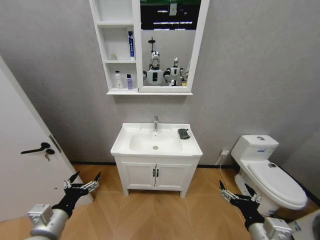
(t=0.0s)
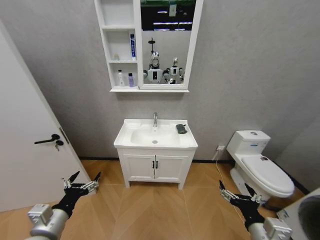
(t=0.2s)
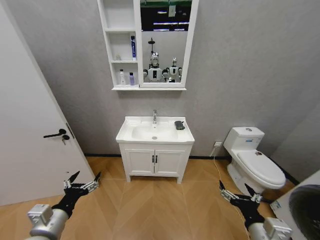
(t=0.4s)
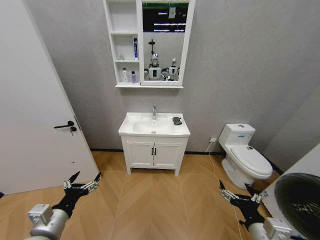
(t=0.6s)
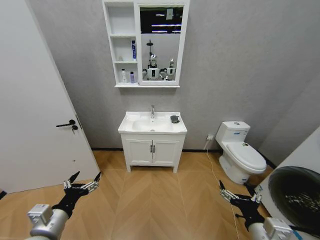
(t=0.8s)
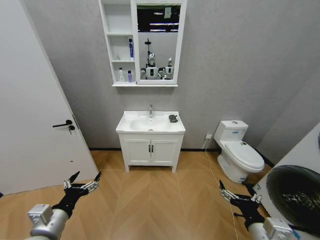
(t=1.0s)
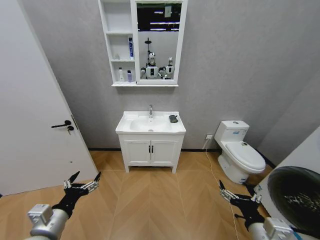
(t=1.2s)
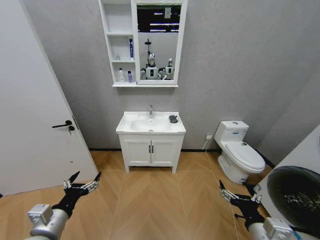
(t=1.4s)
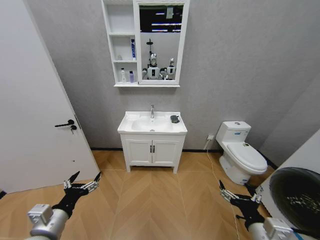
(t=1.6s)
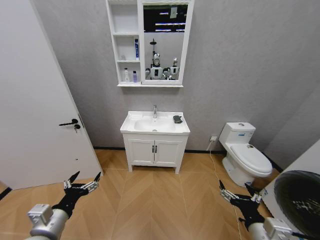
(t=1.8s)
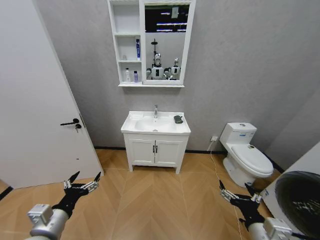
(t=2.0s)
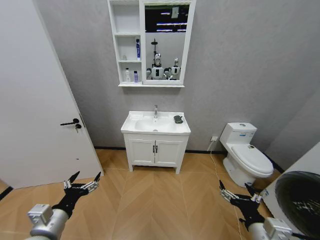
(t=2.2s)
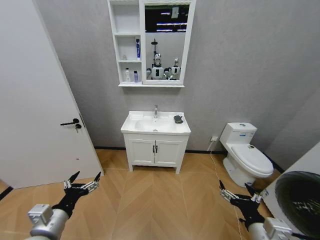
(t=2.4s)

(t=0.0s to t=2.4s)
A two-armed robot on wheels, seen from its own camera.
Task of the whole recording: Move facial cleanser and shampoo from washbasin to cabinet, then wipe washbasin with towel.
t=1.2s - t=2.4s: Both grippers stay put.
